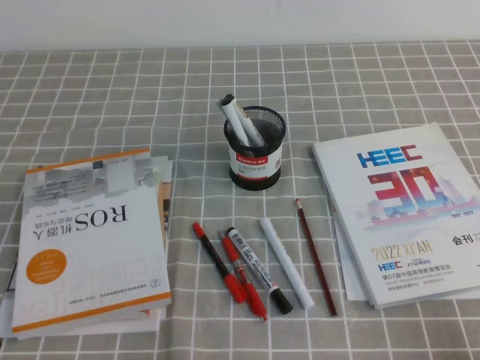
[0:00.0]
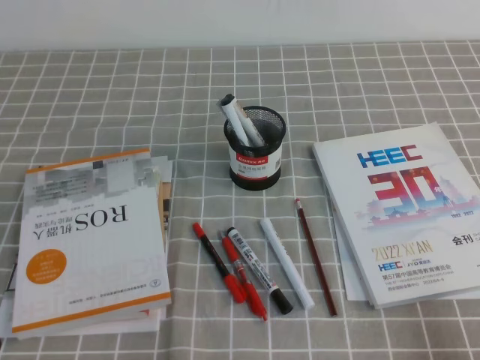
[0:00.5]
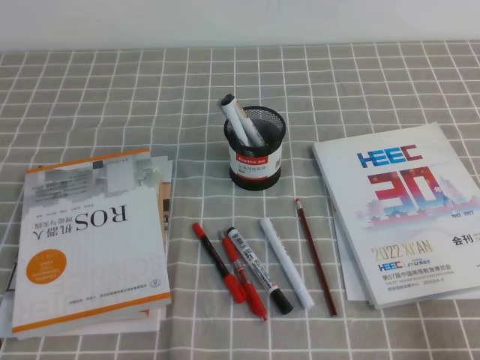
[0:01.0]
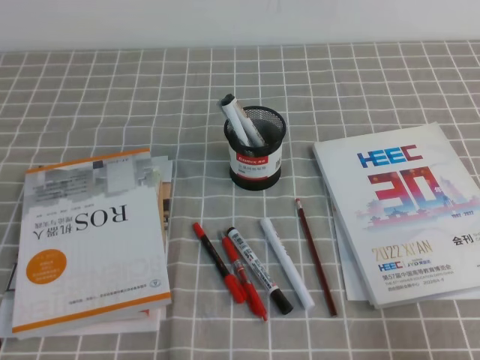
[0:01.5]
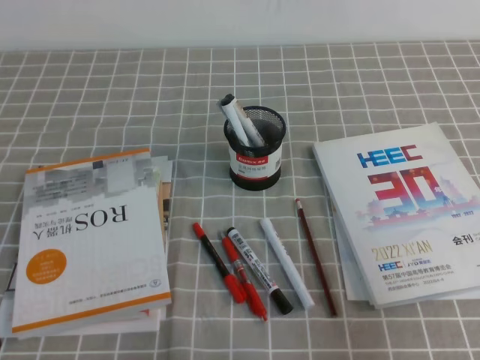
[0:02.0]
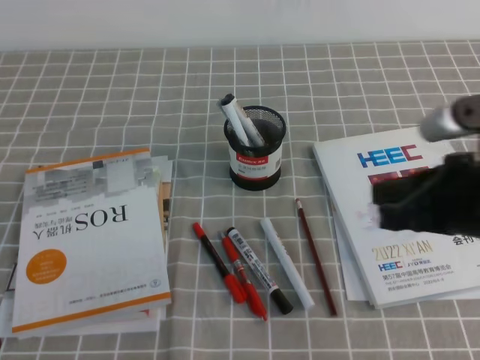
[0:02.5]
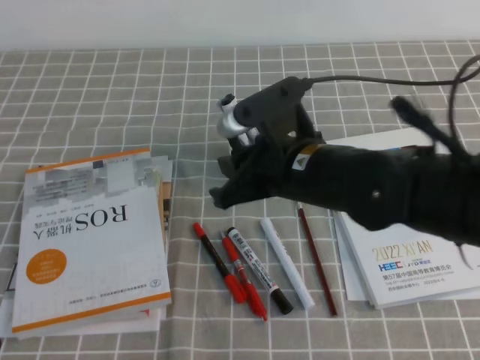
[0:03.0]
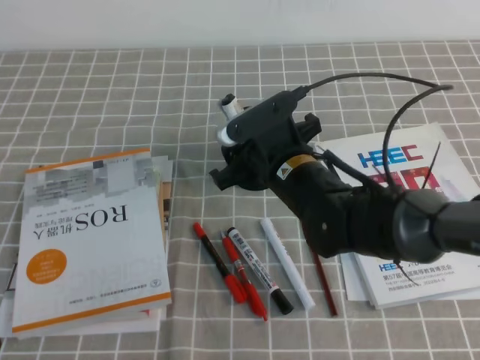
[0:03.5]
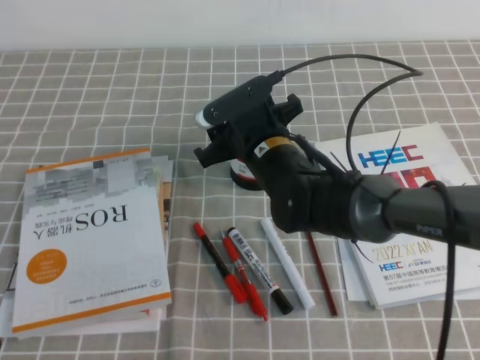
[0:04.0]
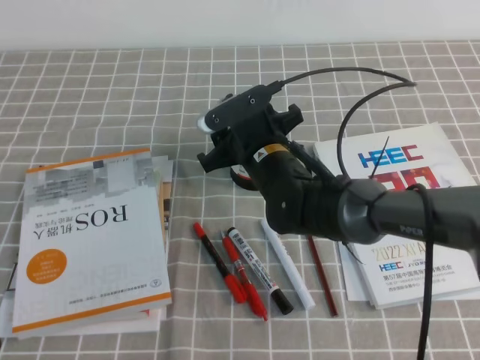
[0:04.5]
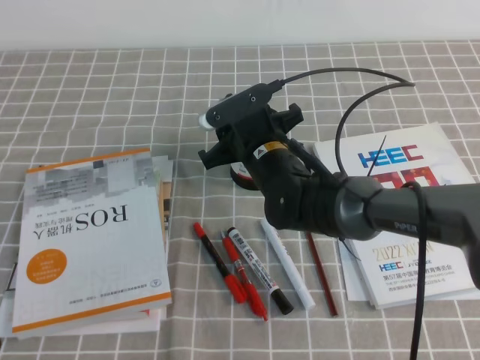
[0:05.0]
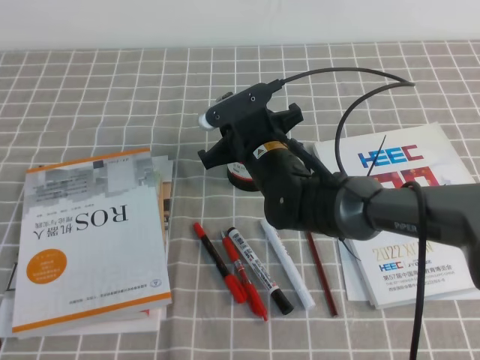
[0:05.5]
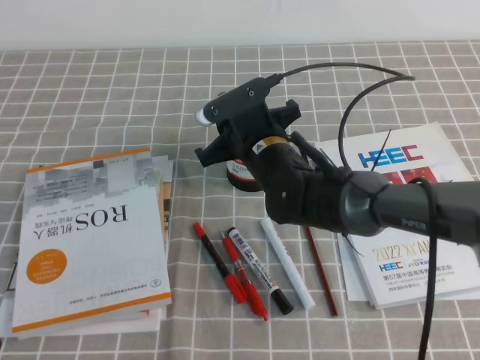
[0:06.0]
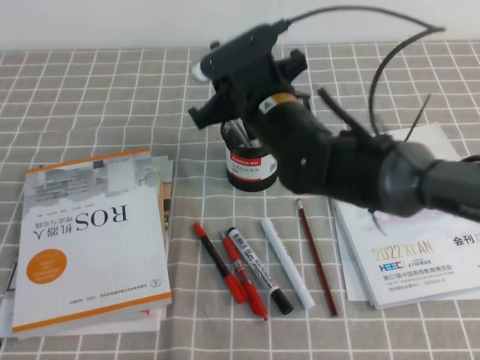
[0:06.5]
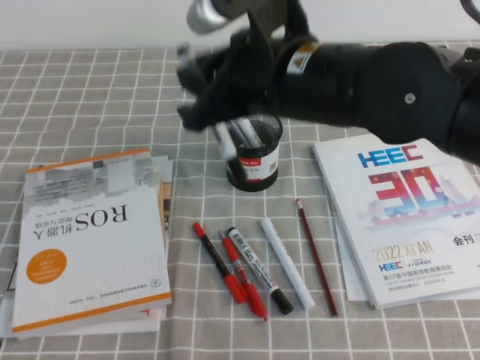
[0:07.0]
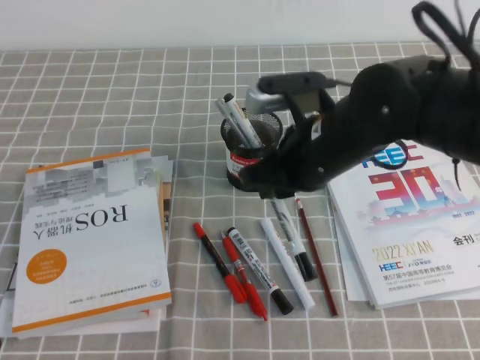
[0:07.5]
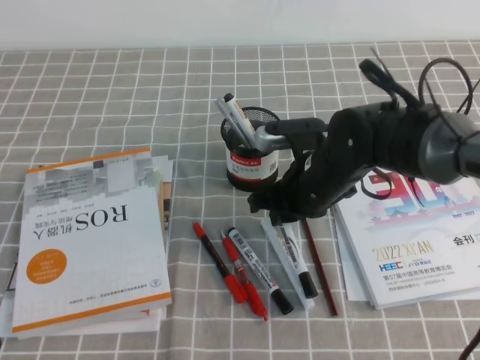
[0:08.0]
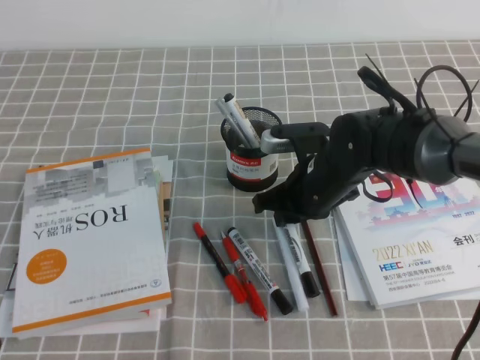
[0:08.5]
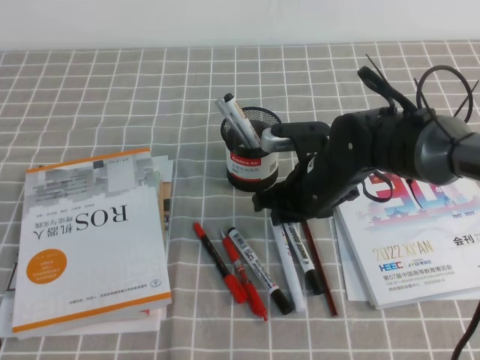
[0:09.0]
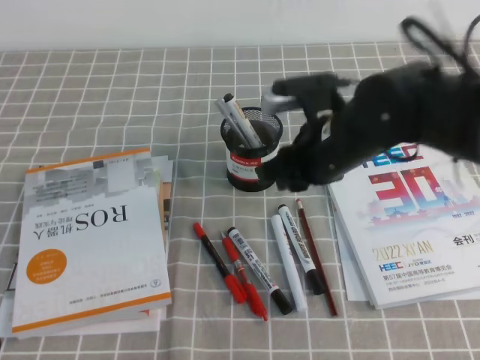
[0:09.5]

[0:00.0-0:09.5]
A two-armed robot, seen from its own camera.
0:00.0 to 0:02.0: The right gripper goes some 15 cm upward and forward.
0:02.0 to 0:04.0: The right gripper moves to the left and forward, approximately 35 cm, and opens.
0:04.0 to 0:05.5: The right gripper closes.
0:05.5 to 0:07.5: The right gripper moves upward, backward and to the right, roughly 15 cm.
0:07.5 to 0:09.5: The right gripper goes downward and returns, roughly 10 cm each way.

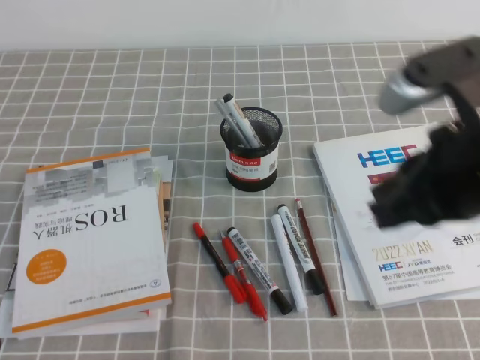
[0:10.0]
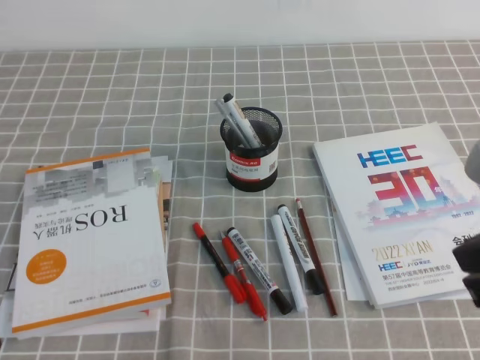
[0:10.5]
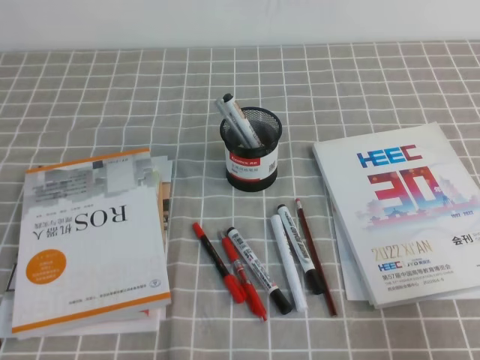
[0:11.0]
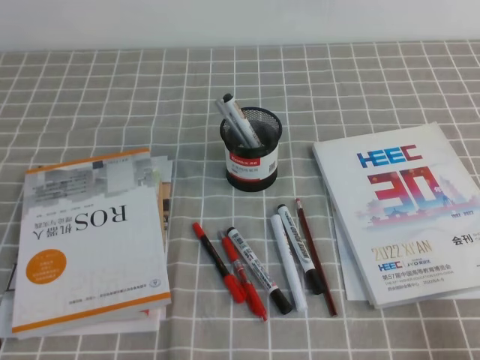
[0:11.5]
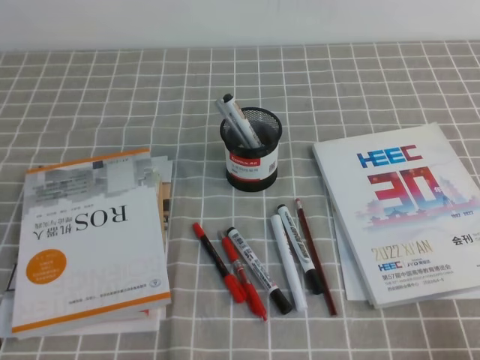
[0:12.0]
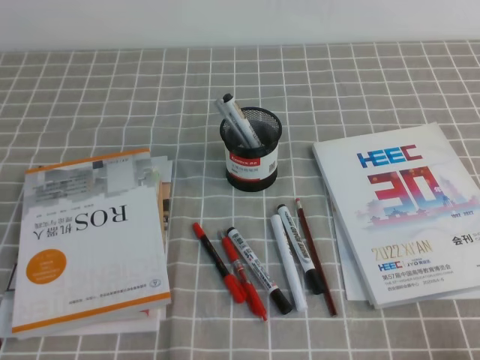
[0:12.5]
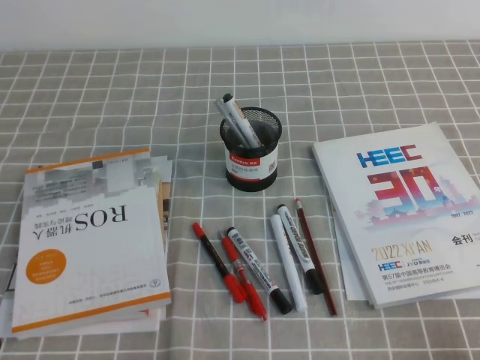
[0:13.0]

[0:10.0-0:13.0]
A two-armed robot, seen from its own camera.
Step, 0:10.0 to 0:13.0: Pick up the pen from the pen holder.
0:10.0 to 0:11.5: The right gripper travels downward, to the right and backward by some 25 cm.
